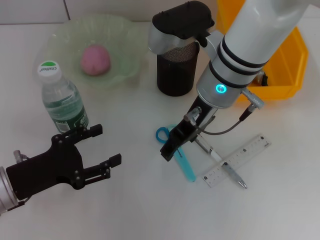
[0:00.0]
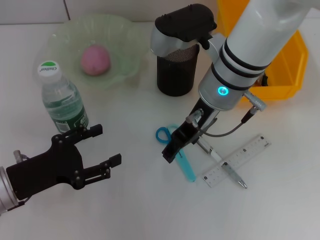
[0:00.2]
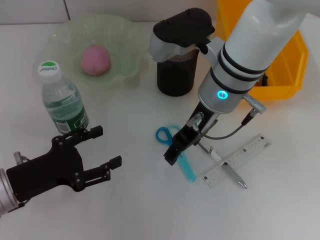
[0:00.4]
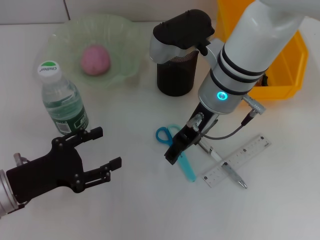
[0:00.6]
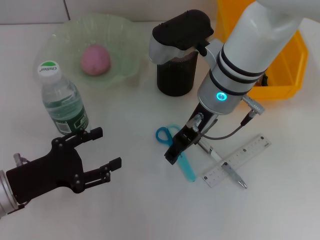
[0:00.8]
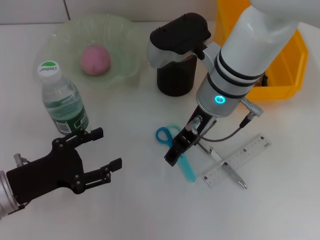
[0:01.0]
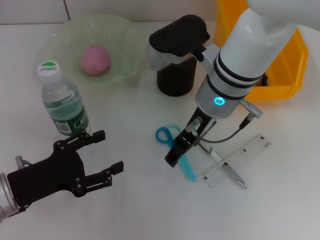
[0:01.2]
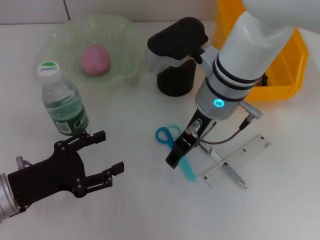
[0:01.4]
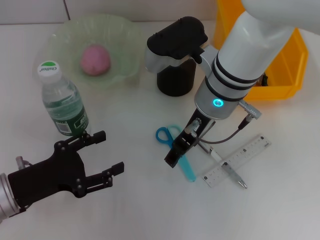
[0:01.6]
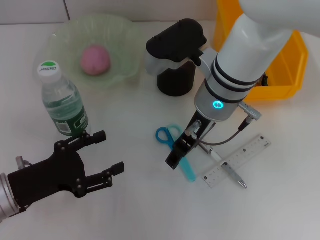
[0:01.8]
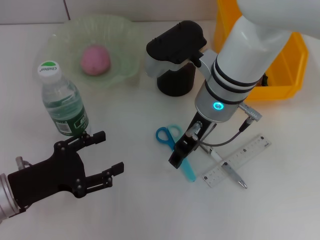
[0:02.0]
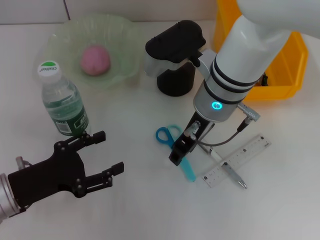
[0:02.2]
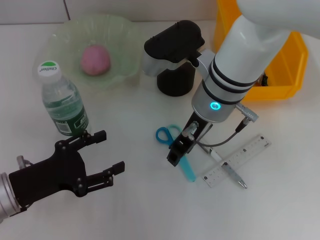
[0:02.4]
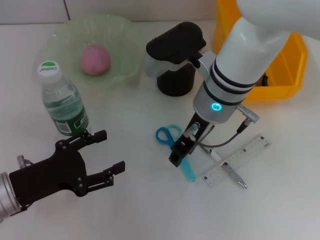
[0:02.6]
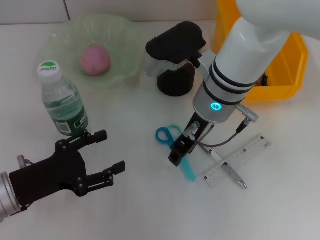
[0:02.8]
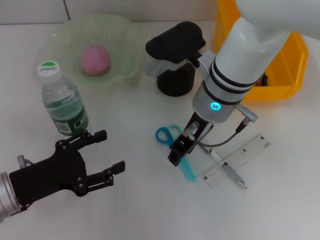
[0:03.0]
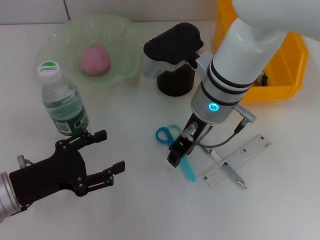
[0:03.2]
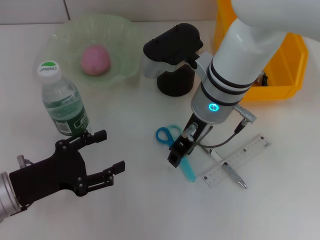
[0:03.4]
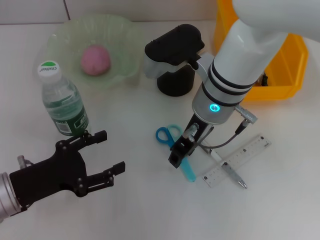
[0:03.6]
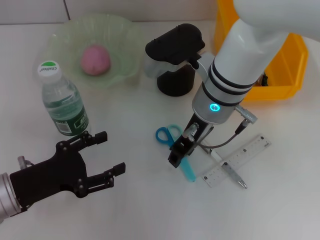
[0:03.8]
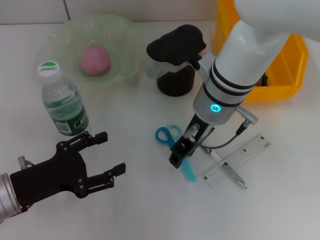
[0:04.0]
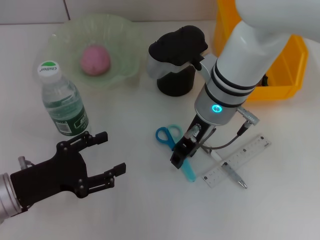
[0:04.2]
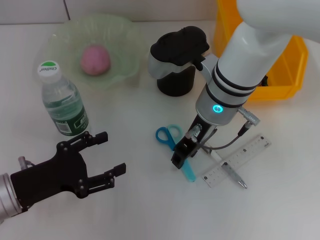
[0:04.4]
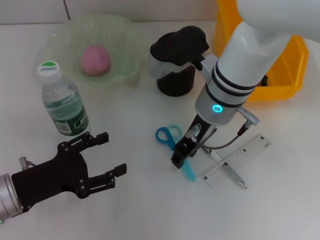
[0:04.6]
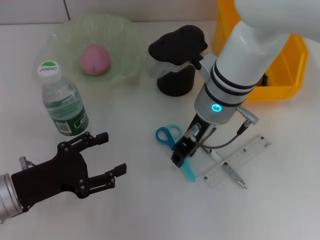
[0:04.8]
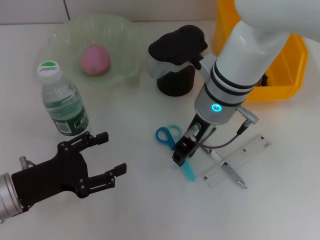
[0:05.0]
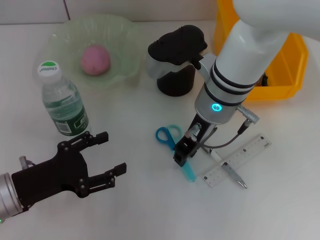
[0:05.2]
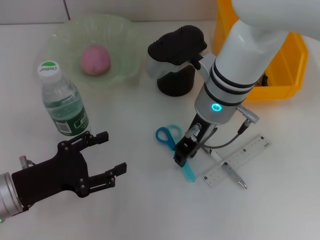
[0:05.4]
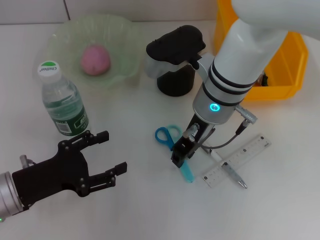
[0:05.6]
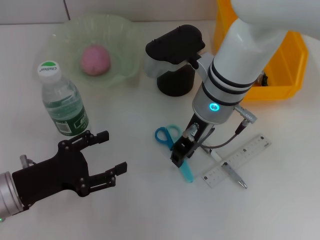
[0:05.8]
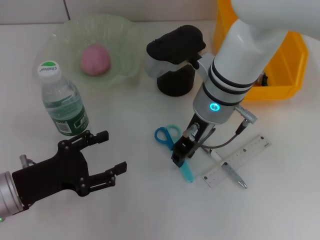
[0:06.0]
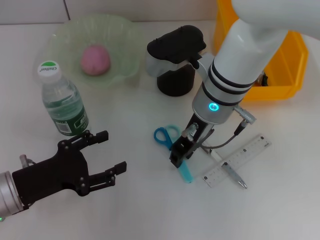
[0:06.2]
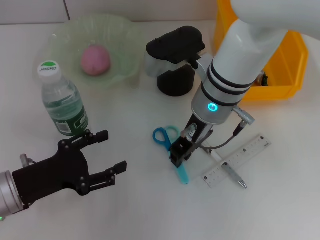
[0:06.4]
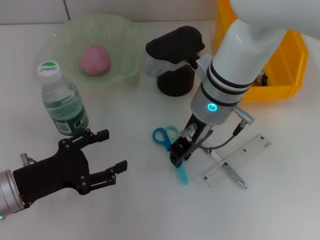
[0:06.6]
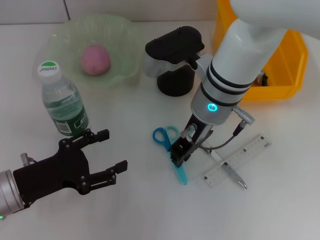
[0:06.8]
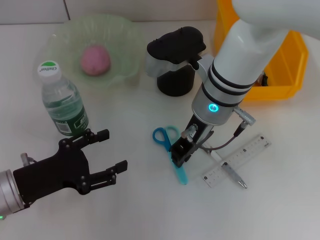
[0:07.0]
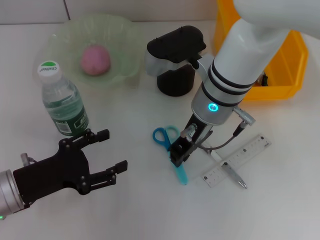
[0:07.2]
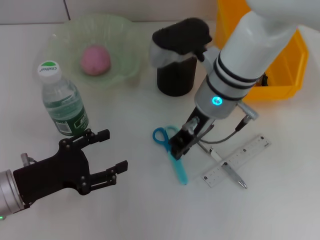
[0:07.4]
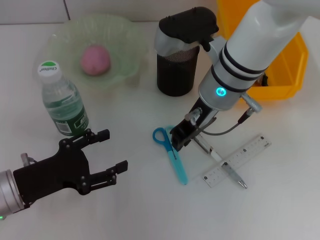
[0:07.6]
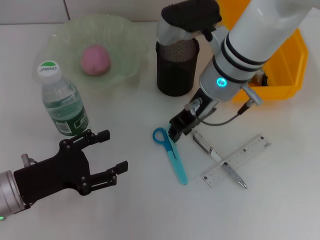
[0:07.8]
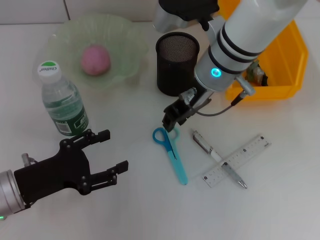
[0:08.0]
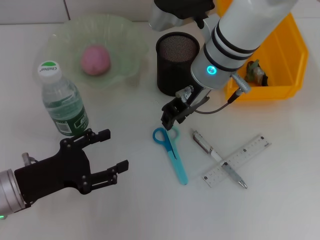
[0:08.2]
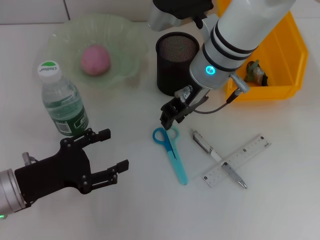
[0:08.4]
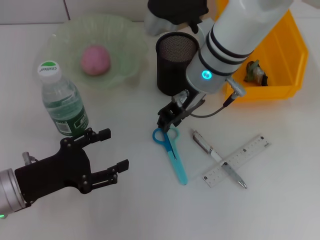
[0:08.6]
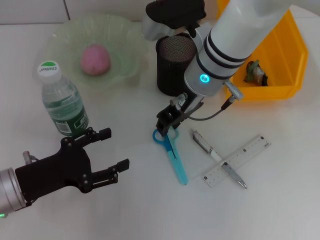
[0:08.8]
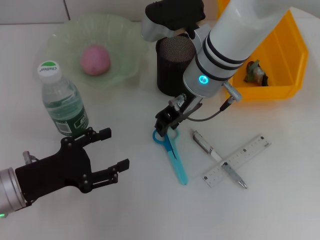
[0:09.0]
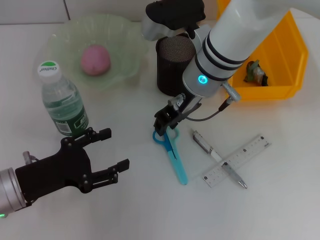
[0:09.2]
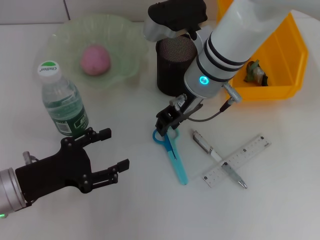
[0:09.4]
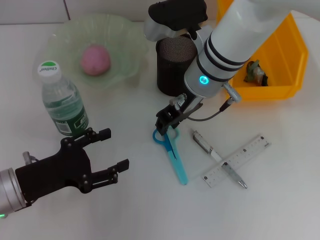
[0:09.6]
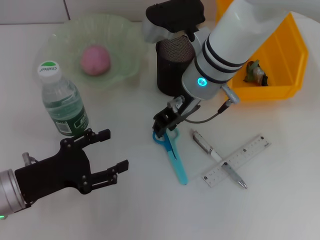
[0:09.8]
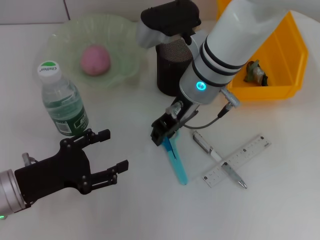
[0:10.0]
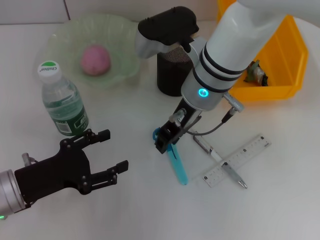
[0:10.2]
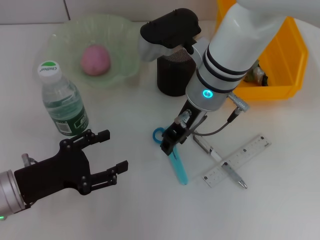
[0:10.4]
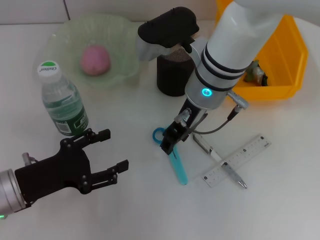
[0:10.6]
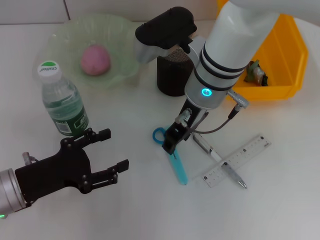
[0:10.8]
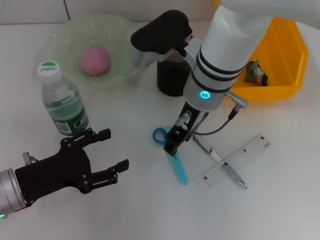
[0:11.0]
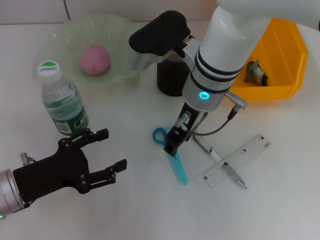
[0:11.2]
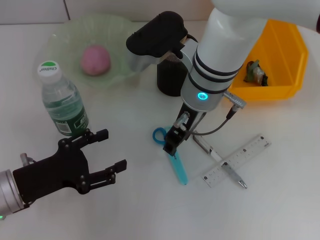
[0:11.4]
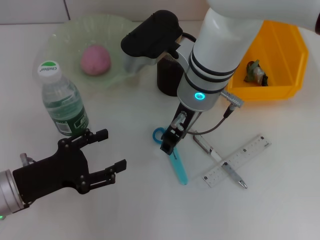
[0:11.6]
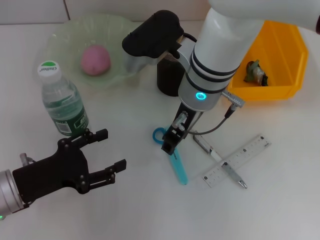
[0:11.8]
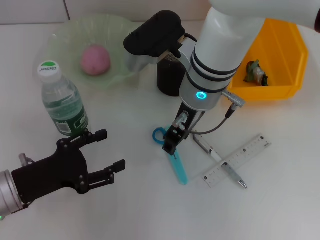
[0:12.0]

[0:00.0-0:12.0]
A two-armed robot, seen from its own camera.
0:00.0 to 0:01.6: There are only small adjustments of the grippers.
0:01.6 to 0:03.0: The right gripper closes up.
0:03.0 to 0:06.0: Both grippers stay put.
0:06.0 to 0:12.0: There are only small adjustments of the grippers.

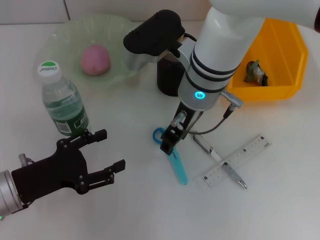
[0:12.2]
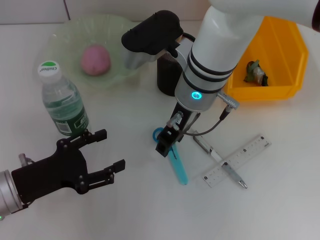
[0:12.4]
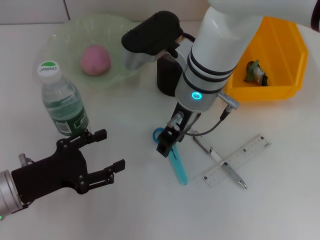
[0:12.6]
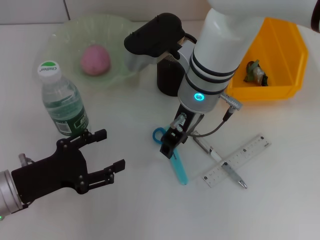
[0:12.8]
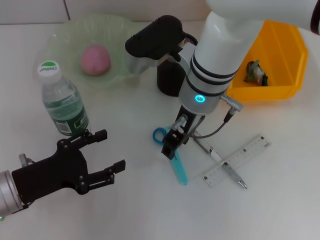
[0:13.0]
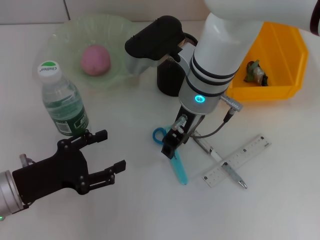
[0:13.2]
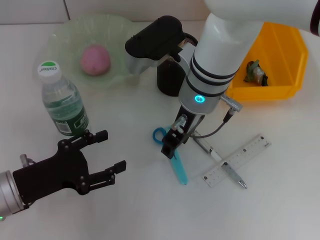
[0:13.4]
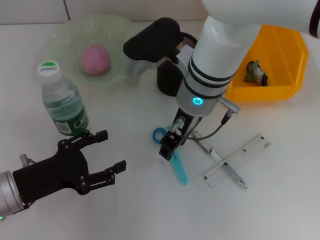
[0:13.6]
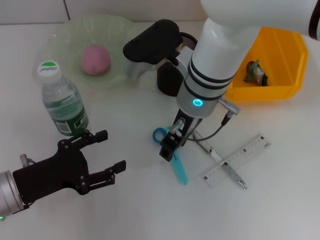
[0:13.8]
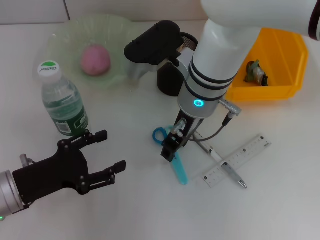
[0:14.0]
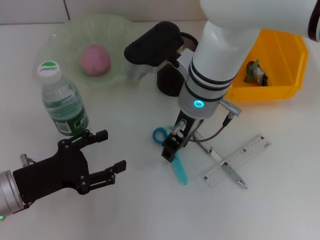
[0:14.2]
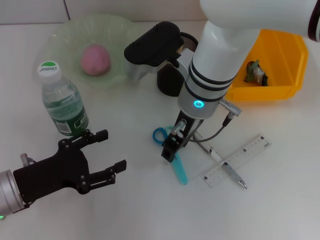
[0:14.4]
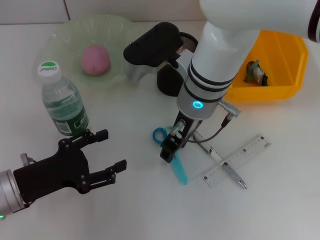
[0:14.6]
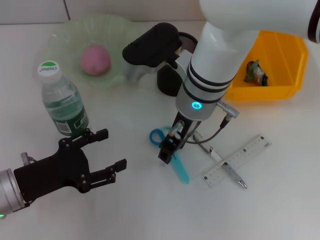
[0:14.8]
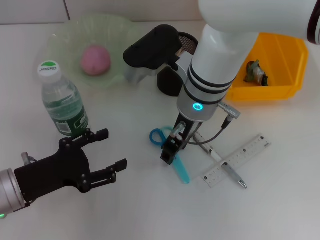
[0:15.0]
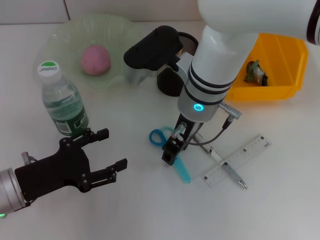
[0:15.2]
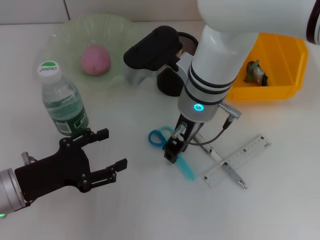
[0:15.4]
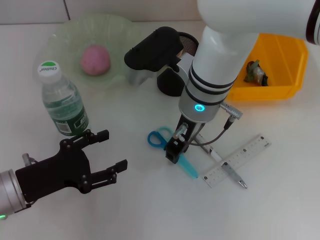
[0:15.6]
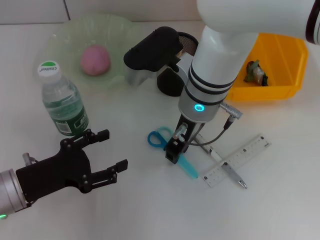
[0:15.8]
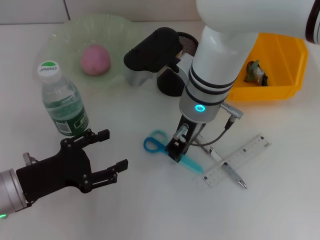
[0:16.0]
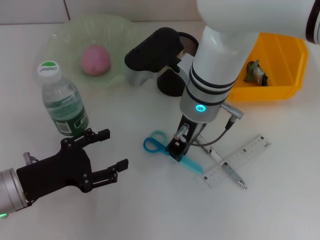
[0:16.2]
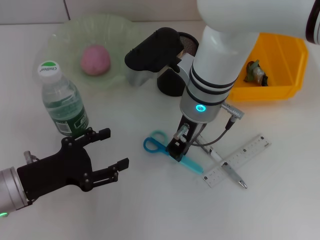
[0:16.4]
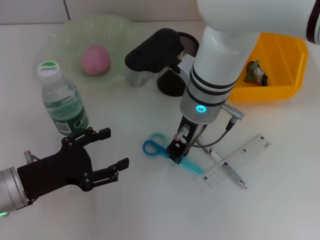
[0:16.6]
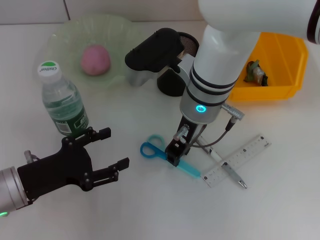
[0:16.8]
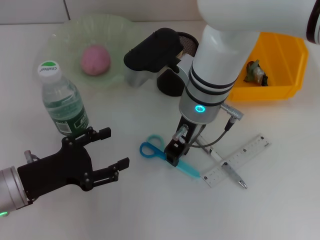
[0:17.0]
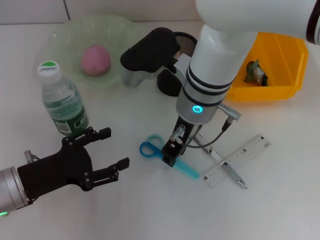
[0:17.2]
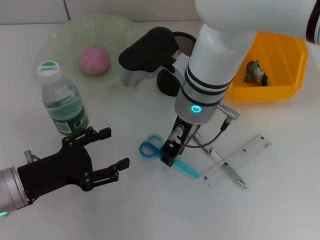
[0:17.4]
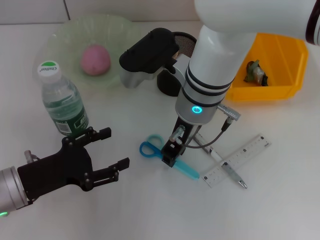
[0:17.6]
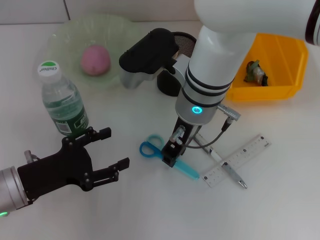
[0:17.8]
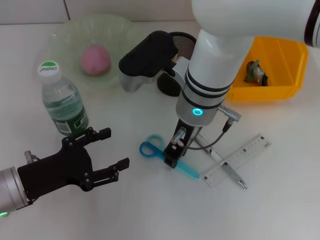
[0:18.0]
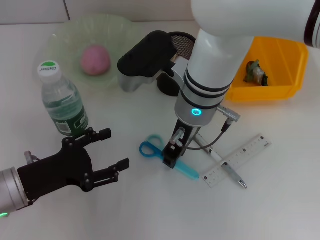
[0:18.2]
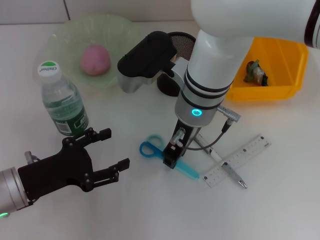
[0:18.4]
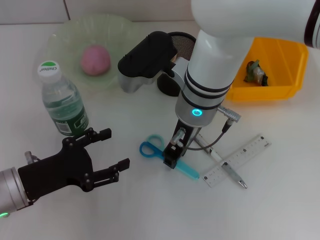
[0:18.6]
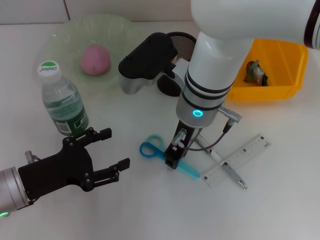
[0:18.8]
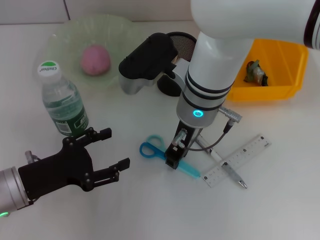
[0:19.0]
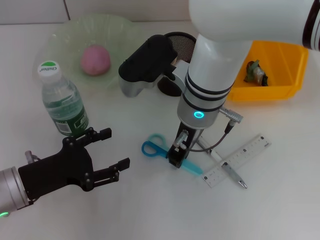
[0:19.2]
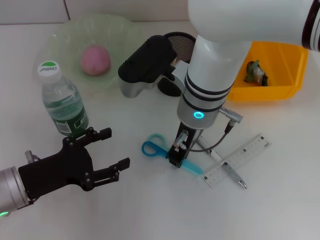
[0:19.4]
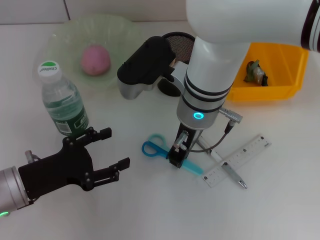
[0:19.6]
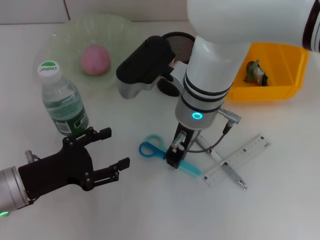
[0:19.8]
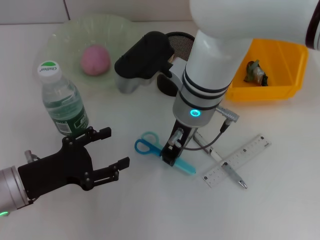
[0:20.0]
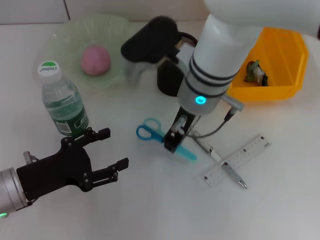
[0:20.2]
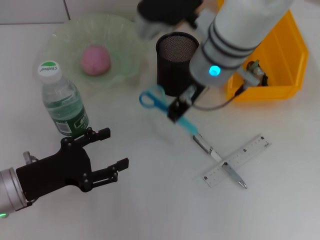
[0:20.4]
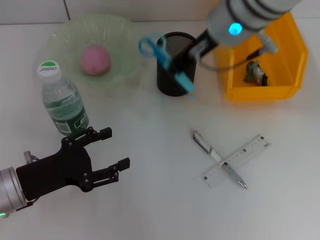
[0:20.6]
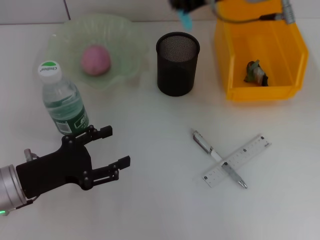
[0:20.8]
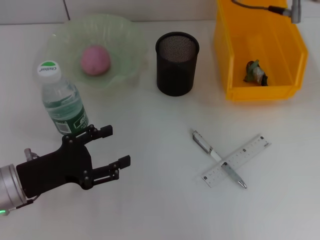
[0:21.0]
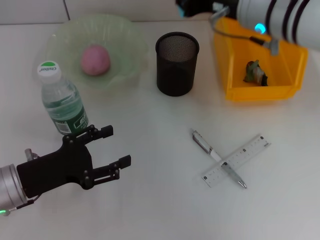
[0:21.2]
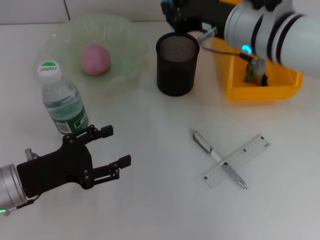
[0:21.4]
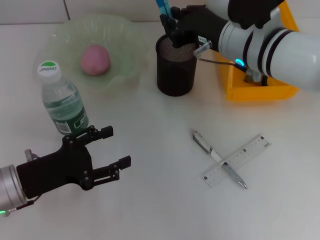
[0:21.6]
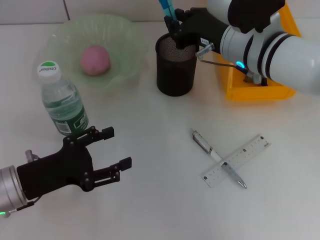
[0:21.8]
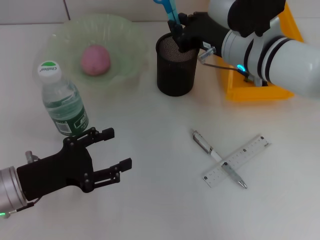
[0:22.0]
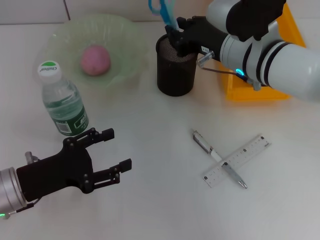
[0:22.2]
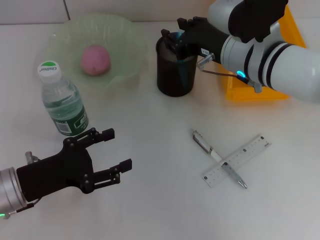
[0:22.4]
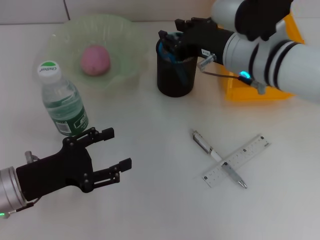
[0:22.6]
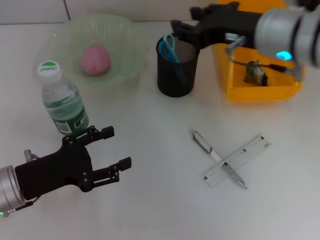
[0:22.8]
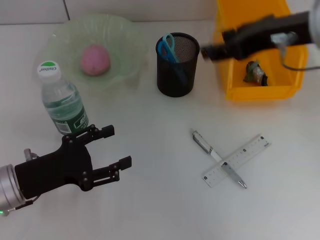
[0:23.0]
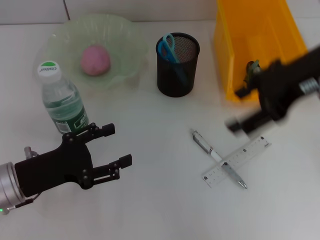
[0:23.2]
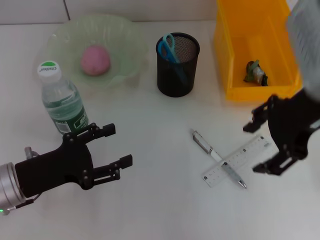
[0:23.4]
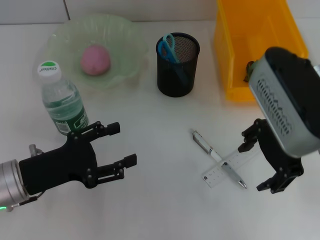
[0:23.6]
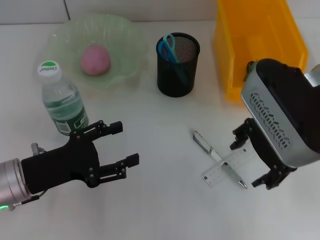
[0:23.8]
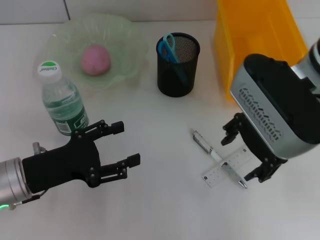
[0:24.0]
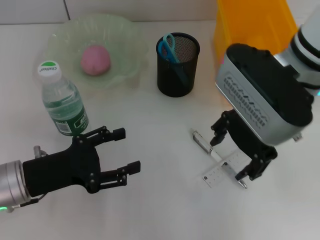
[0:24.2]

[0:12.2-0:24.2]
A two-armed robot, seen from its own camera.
Step, 0:12.2 to 0:19.4: Grab the blue scissors with the right hand.
Step, 0:19.8 to 0:22.4: Place the blue scissors into the pen holder with the right hand.
0:12.2 to 0:13.8: The two grippers keep their place.
0:13.8 to 0:18.2: Neither gripper changes place.
0:18.2 to 0:19.8: Both grippers stay about where they are.
0:19.8 to 0:21.2: The right gripper shifts roughly 10 cm to the right and upward.
0:21.2 to 0:22.6: The grippers make only small movements.
0:22.6 to 0:24.2: The right gripper opens its fingers.
